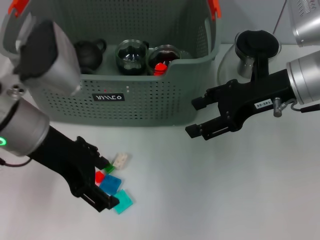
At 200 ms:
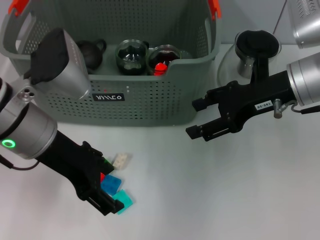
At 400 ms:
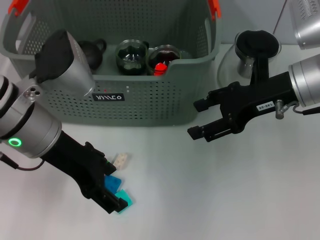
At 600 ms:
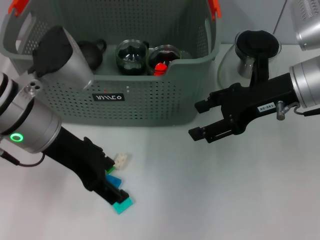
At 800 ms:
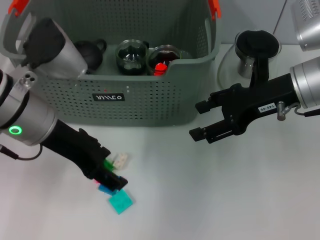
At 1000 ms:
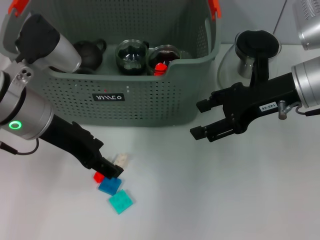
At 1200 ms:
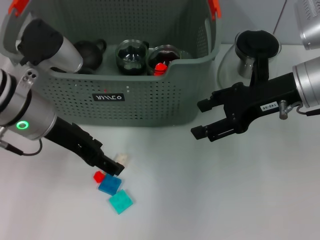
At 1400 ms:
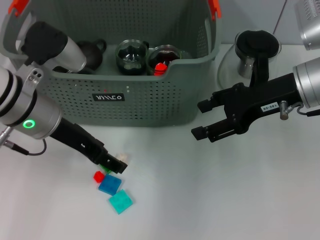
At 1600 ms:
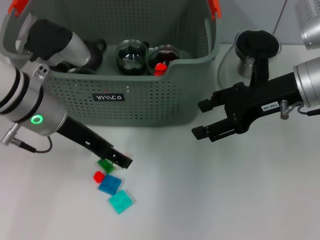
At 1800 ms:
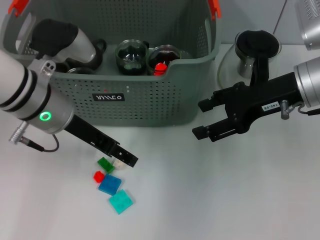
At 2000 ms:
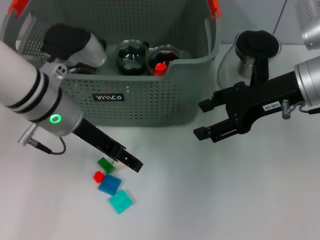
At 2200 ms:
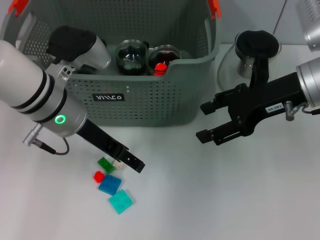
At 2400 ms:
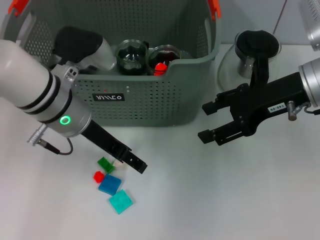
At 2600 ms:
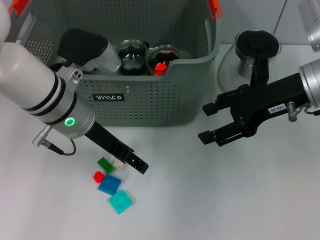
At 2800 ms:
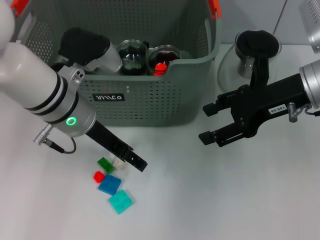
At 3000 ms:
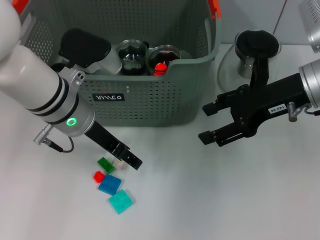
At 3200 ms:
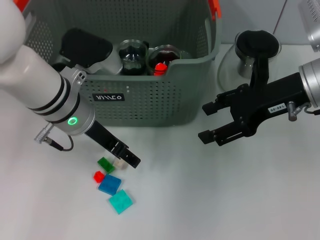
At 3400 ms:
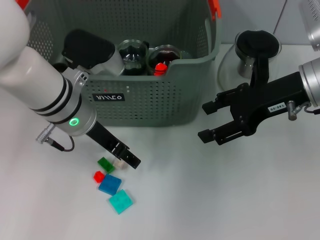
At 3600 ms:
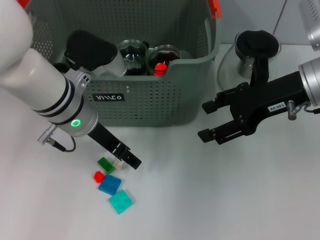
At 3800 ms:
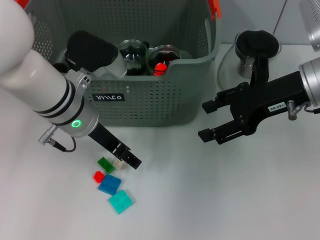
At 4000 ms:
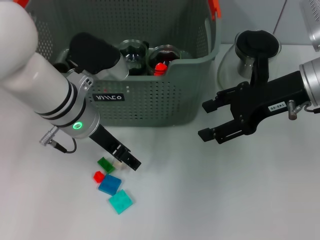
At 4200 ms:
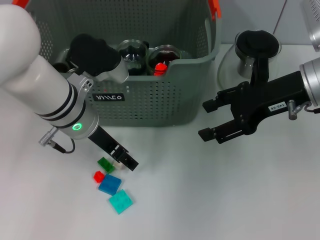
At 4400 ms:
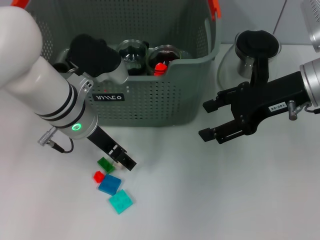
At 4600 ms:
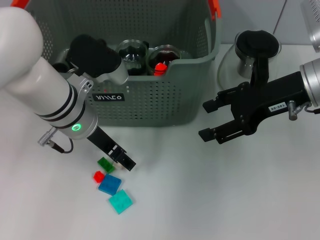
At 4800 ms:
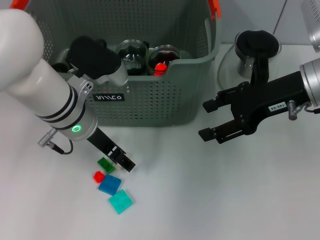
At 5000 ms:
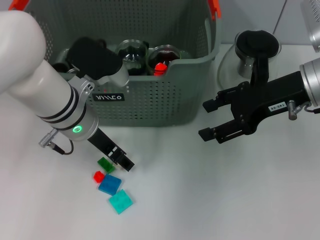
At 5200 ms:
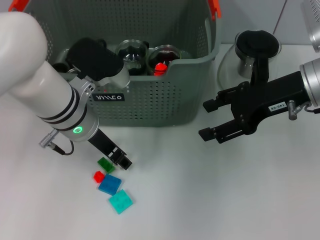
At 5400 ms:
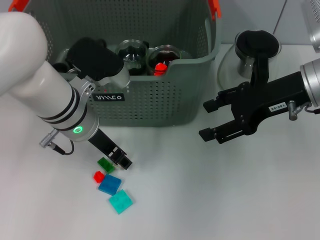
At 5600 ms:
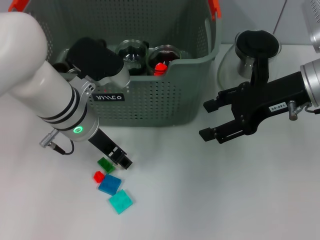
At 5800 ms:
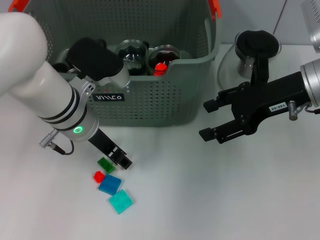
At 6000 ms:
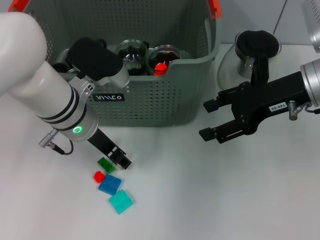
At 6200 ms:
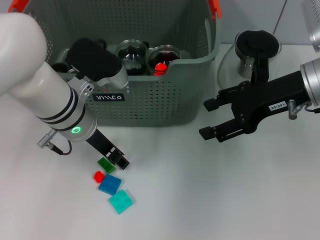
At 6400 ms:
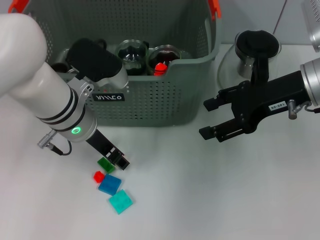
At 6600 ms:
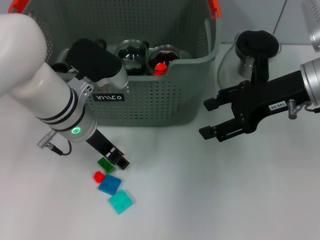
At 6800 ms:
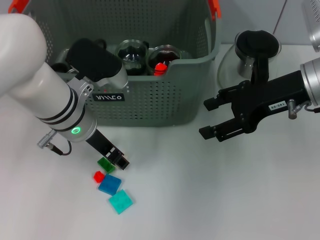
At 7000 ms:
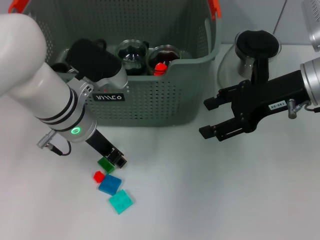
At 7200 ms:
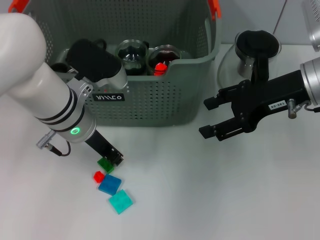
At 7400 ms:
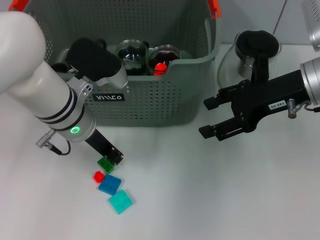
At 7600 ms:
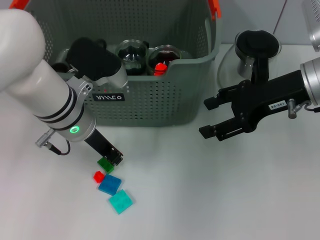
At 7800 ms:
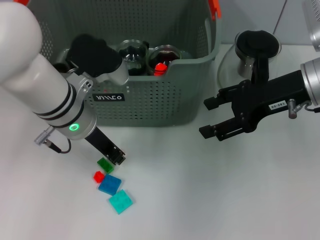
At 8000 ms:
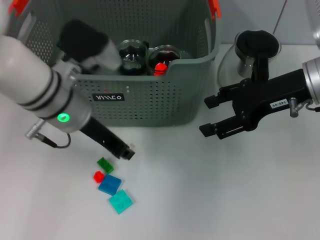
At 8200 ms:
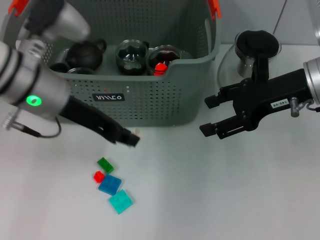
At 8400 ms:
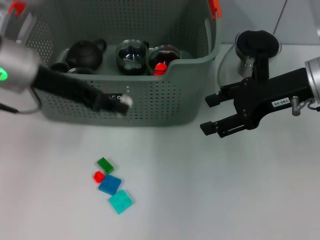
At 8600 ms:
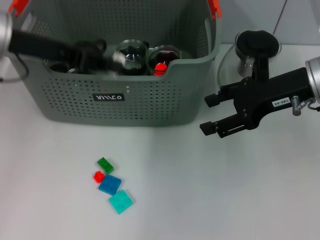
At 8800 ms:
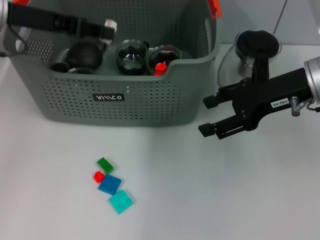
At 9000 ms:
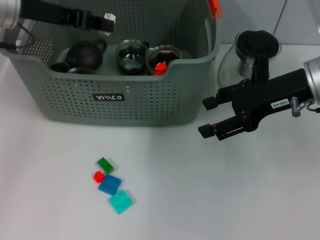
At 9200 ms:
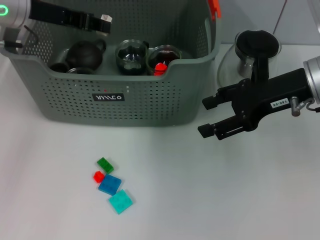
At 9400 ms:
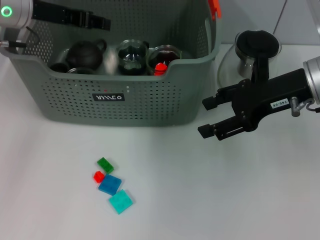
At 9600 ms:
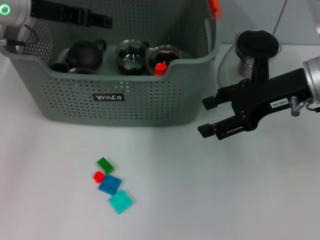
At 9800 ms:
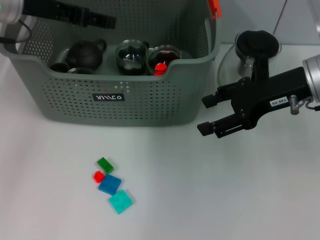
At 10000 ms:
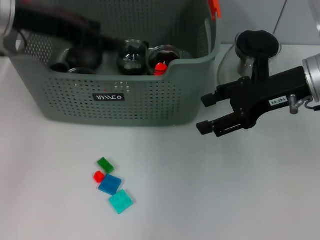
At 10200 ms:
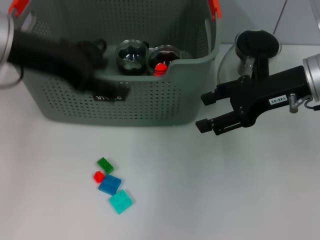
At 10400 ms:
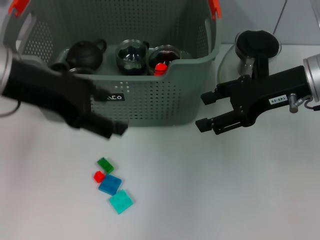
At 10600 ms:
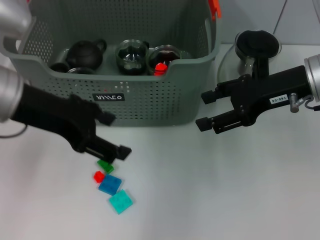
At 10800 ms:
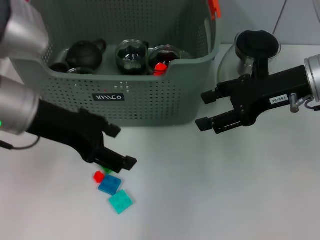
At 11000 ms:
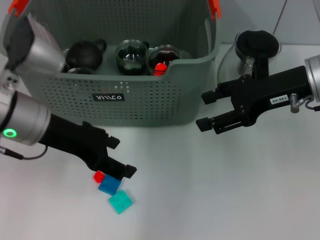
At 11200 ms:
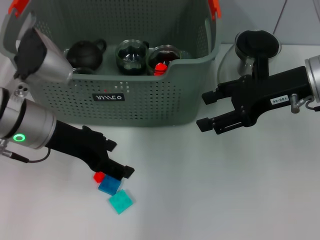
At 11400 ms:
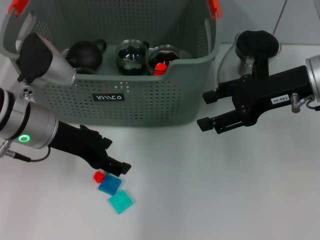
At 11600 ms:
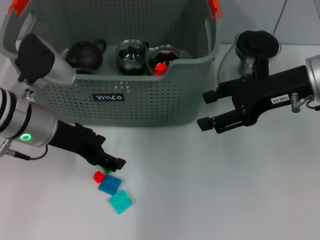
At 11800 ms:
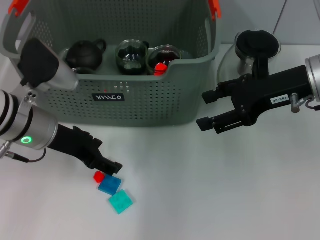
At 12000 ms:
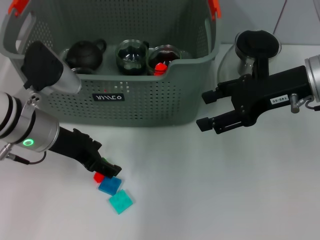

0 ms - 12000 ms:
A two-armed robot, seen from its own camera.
Task of the whole recording: pick up the teacup on the table and place it into the storage bin, pick up the block on the table and place it into the storage bin.
Step, 0 ms - 7800 ms: Grasp the white block with left gripper.
Step, 8000 ms - 9400 ms: Place the white block in the storage box with left gripper.
0 ms - 1600 ms: The left gripper ends up approximately 5 cm from where it was.
1600 ms - 4400 ms: The grippers make only small movements.
4400 ms - 6000 ms: The two grippers keep their place.
6000 ms - 7600 ms: The left gripper closes up.
7600 ms - 9000 ms: The left gripper is displaced upward, to the left and forward by about 15 cm.
9000 ms - 10400 ms: The left gripper travels backward by roughly 10 cm, and opens up.
10400 ms - 12000 ms: The left gripper travels downward by about 15 cm.

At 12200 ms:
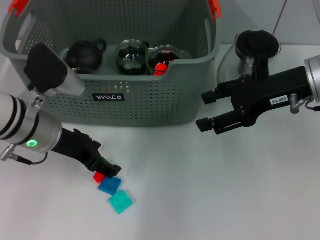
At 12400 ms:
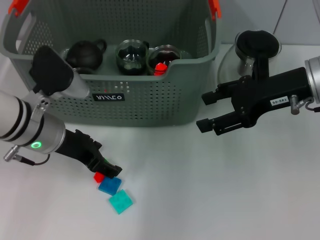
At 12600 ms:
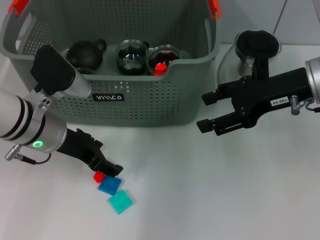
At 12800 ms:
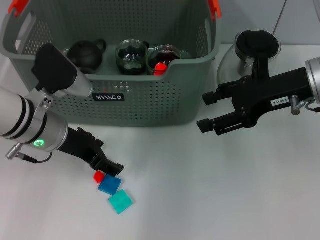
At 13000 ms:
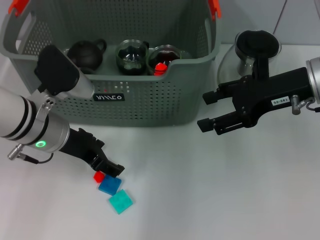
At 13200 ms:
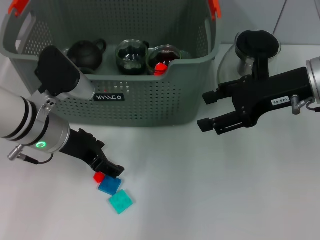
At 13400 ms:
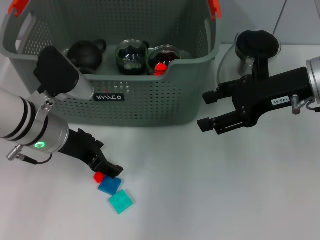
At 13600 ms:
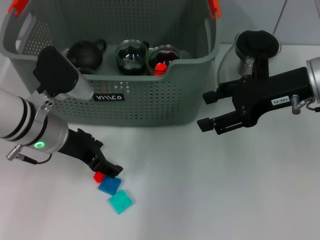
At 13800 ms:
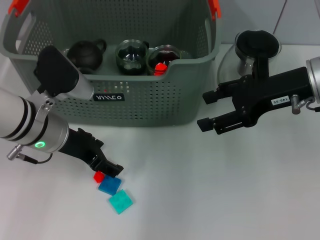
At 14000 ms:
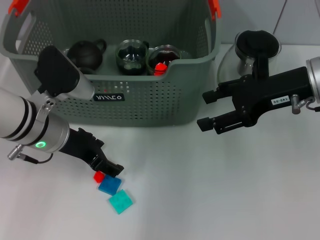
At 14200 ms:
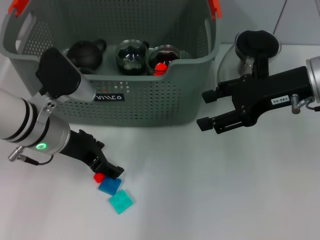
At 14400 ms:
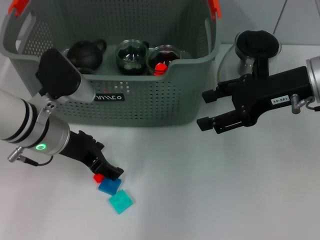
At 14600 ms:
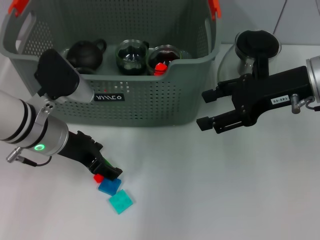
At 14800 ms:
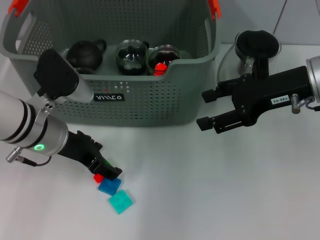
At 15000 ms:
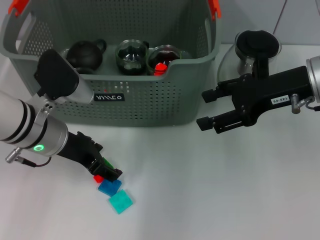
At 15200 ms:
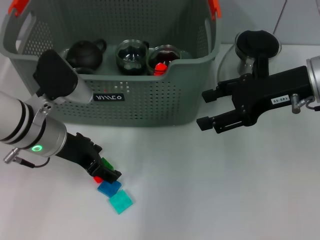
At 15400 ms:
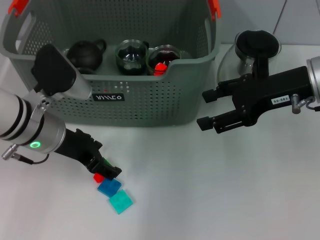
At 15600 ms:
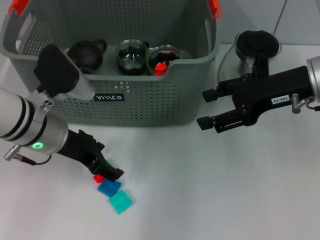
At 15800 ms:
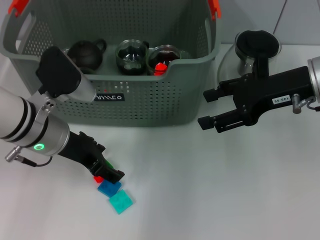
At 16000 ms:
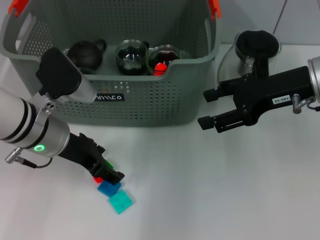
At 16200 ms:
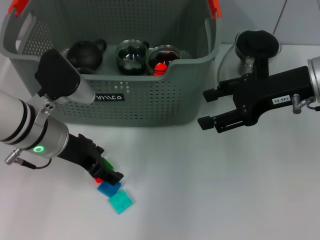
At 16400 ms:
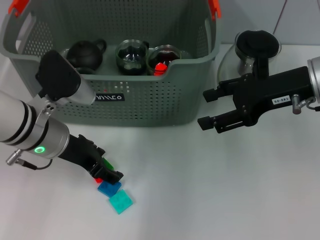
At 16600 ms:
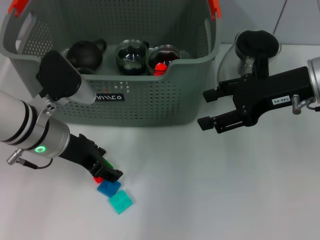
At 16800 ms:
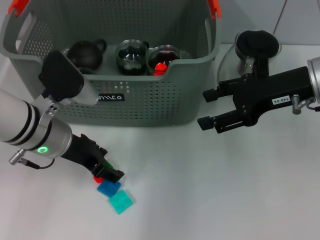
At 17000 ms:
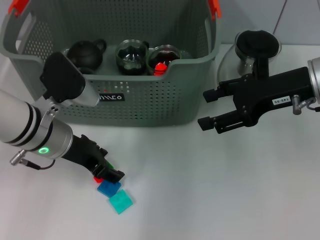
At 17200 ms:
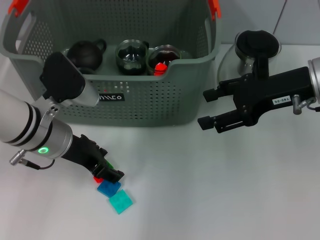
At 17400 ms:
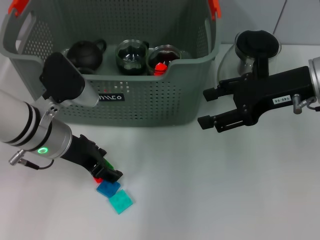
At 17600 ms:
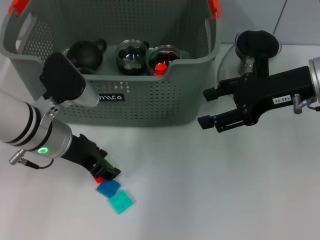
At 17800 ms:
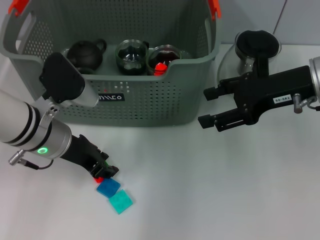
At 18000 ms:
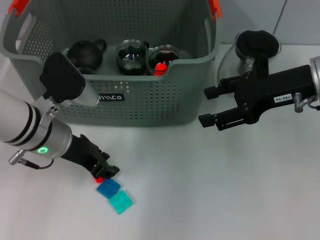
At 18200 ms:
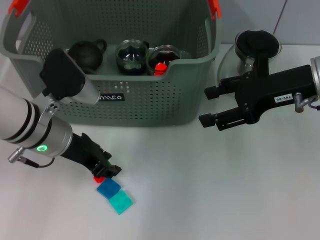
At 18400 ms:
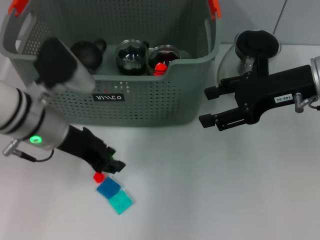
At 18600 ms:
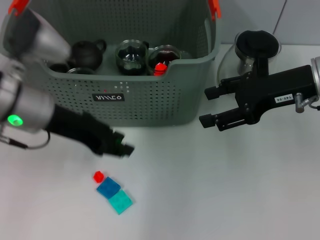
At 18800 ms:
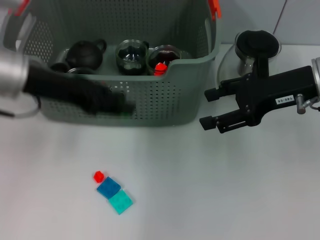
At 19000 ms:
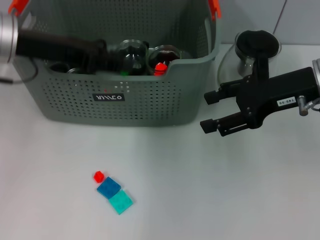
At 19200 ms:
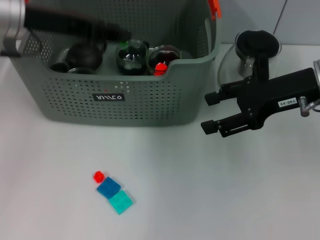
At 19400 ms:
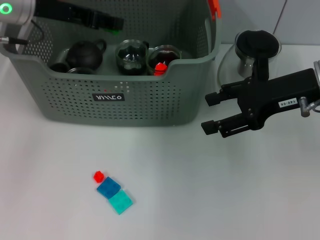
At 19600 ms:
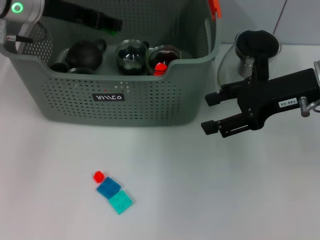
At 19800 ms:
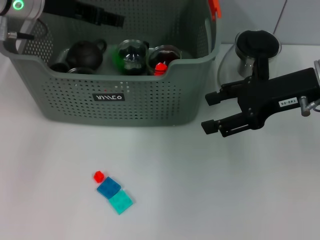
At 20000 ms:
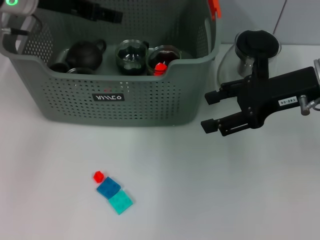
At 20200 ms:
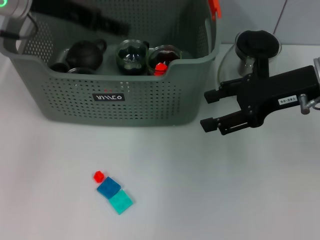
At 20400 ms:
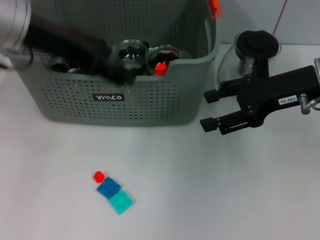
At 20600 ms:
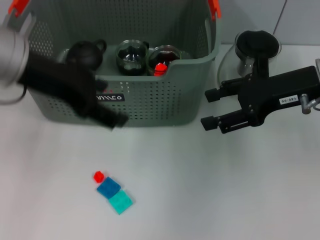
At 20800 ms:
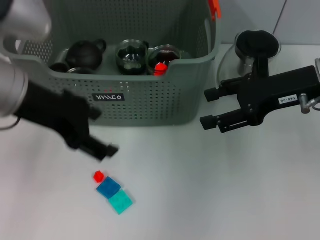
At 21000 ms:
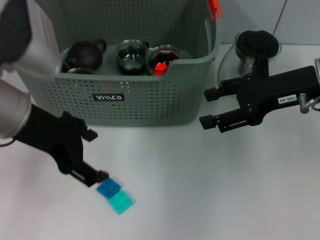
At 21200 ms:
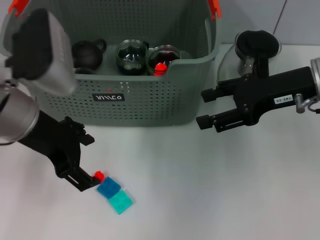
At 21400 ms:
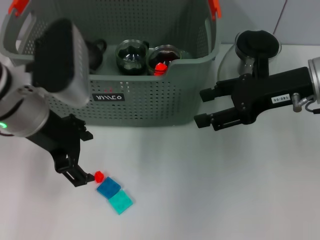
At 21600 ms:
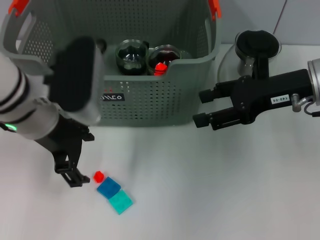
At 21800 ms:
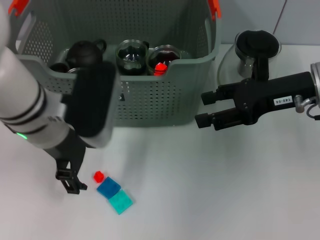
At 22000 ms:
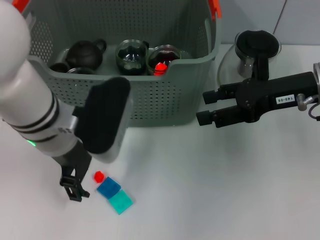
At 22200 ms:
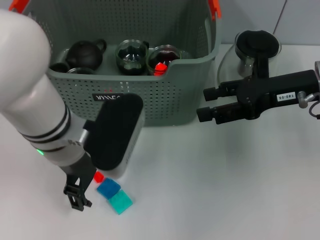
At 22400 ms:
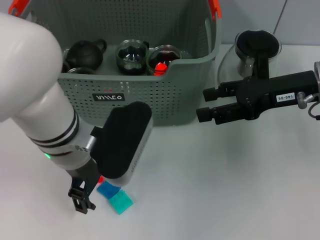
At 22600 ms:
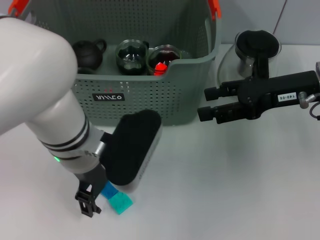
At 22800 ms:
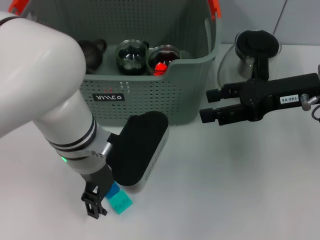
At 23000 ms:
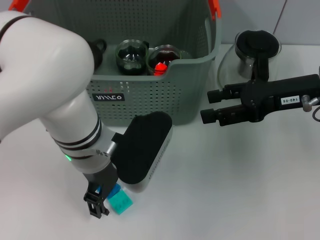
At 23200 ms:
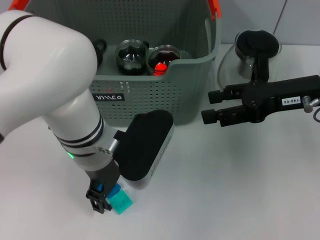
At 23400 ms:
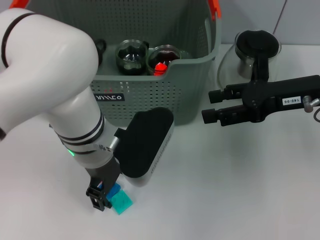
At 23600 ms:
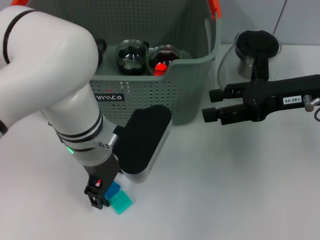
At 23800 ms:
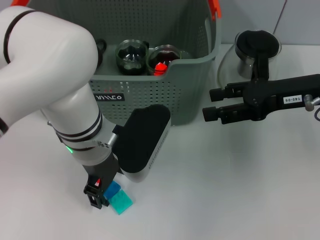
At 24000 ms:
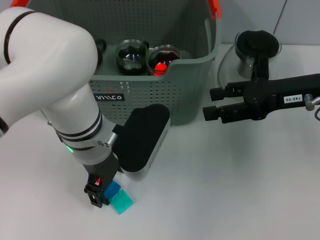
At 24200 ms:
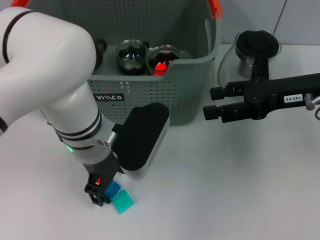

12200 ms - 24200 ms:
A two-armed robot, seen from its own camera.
Task of the whole recording: pick up the teacup on the table and place it into the storage bin, pick up the block on the table and place it into the storage bin.
Step, 12200 ms - 18400 ms: Grasp the green block with left gripper.
Step, 18600 ms - 20000 ms: Place the green block in the storage box with left gripper.
12200 ms - 16600 ms: The two grippers keep their place.
16600 ms - 18200 ms: The left gripper closes up.
18200 ms - 19800 ms: The left gripper is displaced upward and forward by roughly 15 cm.
19800 ms - 21200 ms: The left gripper heads backward, covering roughly 15 cm, and opens its fingers.
21200 ms - 22600 ms: The left gripper travels to the right and downward by approximately 10 cm.
22600 ms - 24200 ms: The grippers make only small movements.
